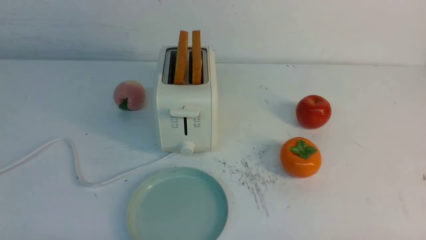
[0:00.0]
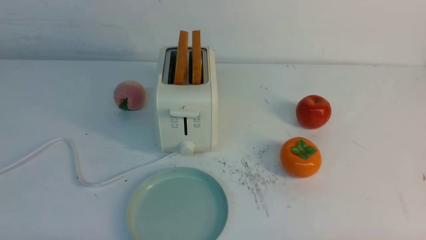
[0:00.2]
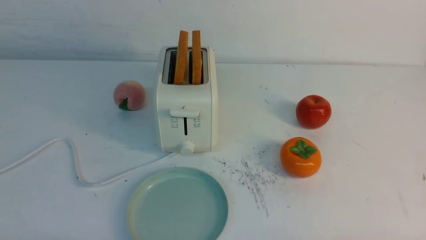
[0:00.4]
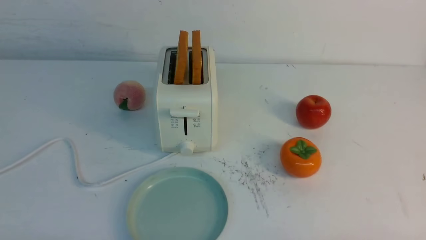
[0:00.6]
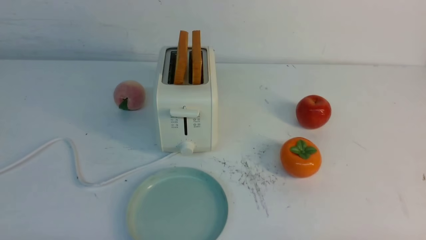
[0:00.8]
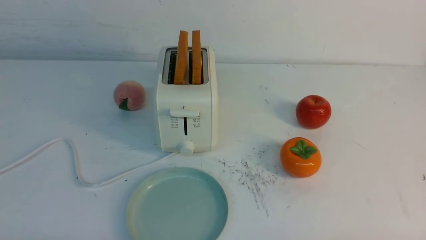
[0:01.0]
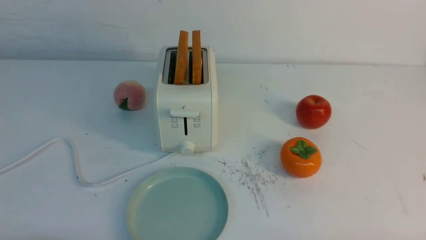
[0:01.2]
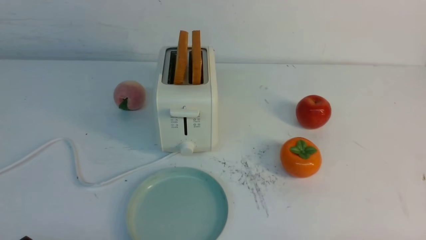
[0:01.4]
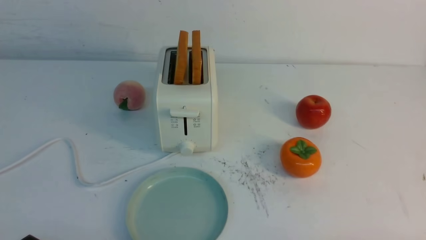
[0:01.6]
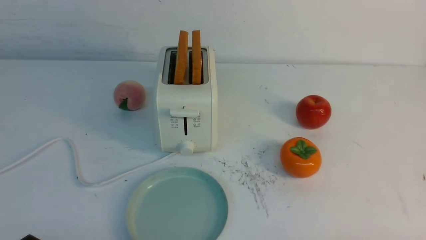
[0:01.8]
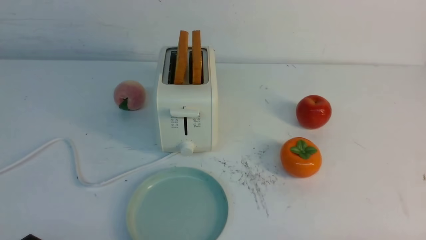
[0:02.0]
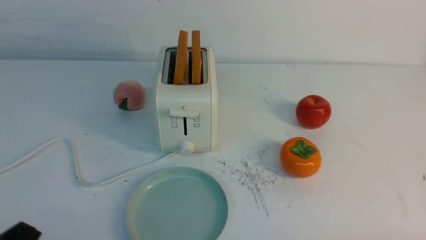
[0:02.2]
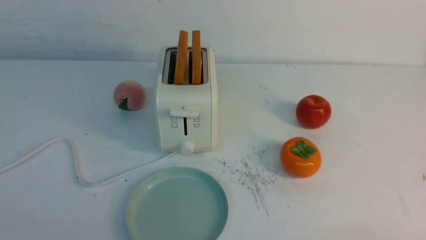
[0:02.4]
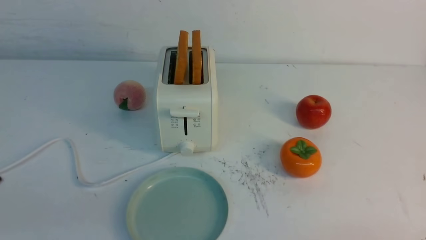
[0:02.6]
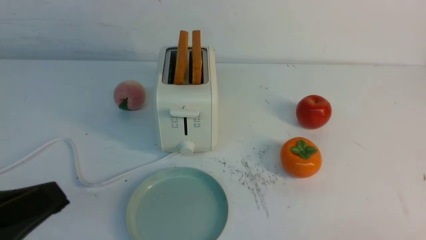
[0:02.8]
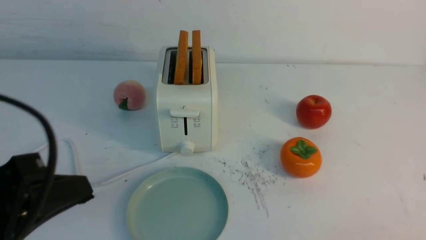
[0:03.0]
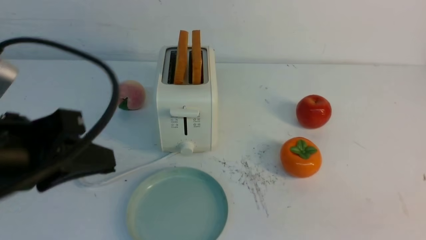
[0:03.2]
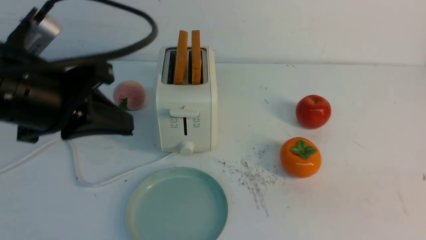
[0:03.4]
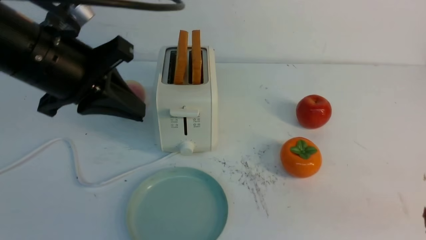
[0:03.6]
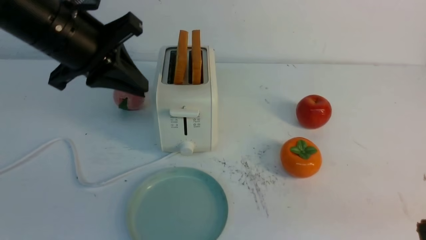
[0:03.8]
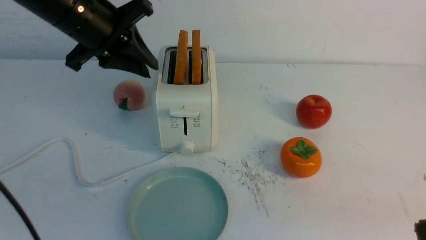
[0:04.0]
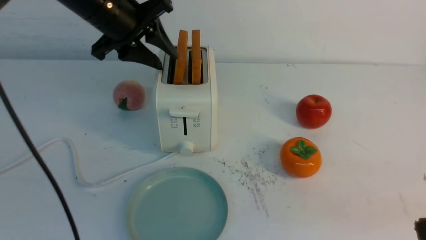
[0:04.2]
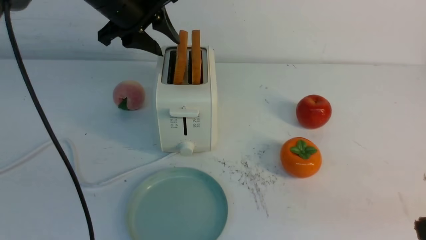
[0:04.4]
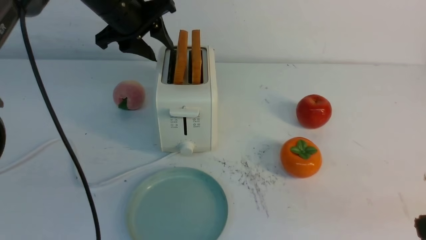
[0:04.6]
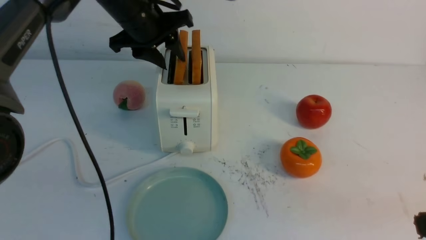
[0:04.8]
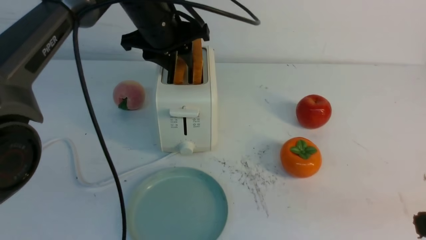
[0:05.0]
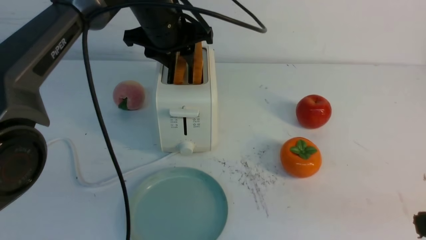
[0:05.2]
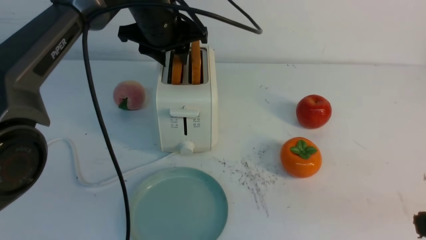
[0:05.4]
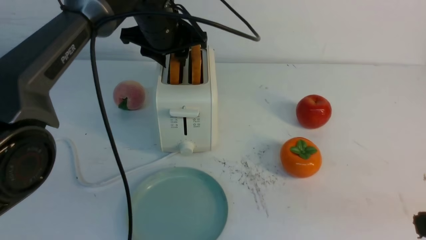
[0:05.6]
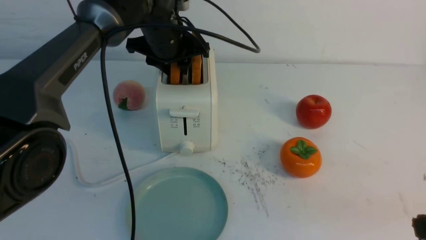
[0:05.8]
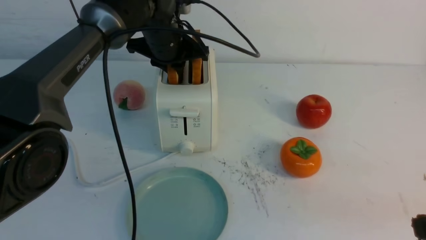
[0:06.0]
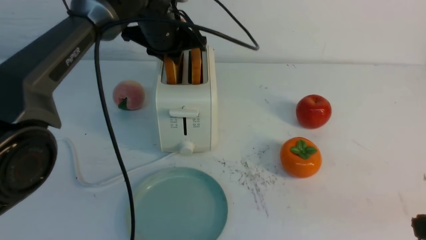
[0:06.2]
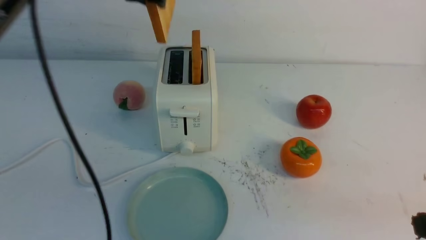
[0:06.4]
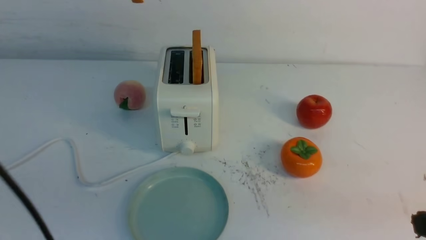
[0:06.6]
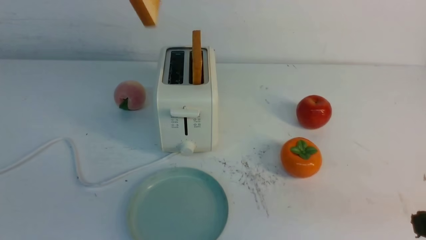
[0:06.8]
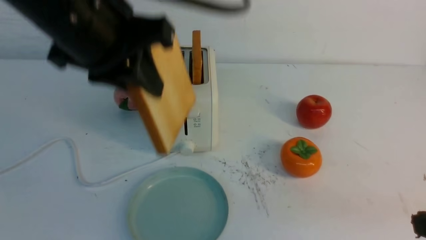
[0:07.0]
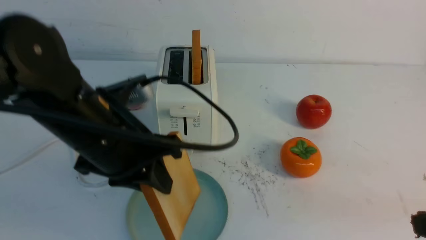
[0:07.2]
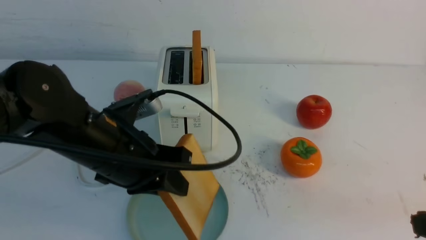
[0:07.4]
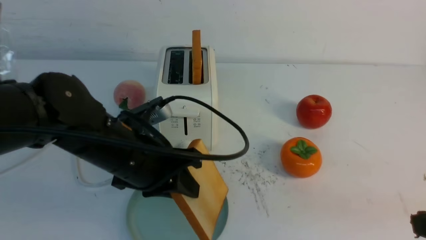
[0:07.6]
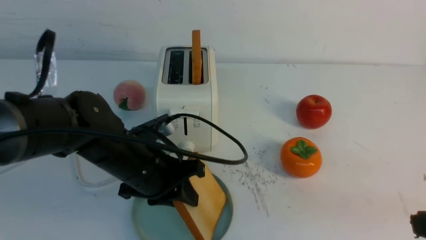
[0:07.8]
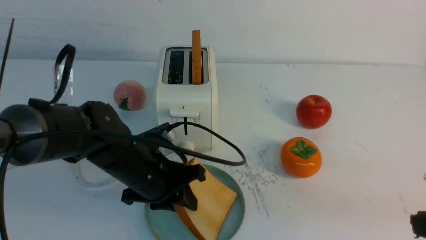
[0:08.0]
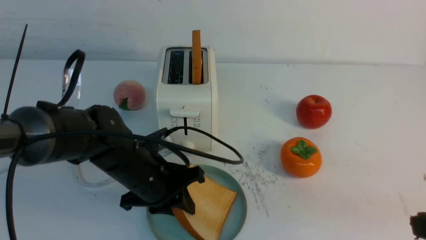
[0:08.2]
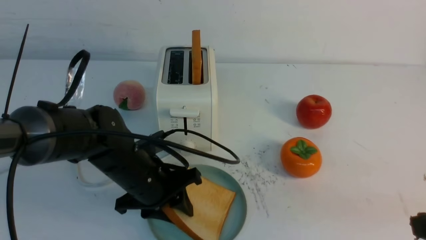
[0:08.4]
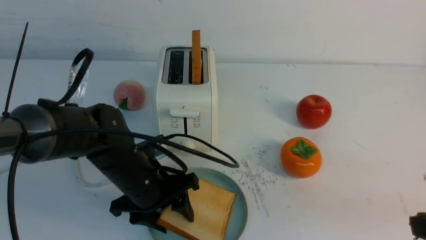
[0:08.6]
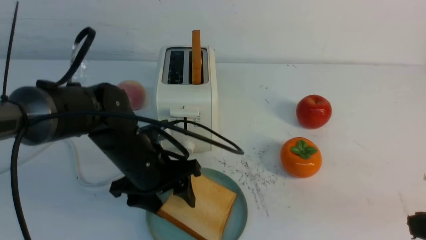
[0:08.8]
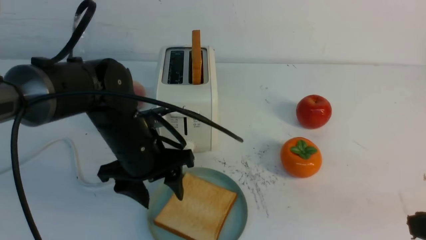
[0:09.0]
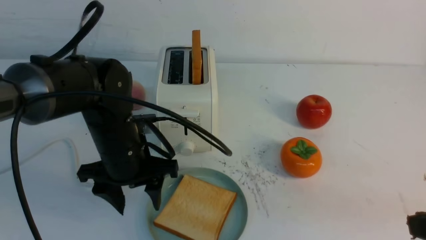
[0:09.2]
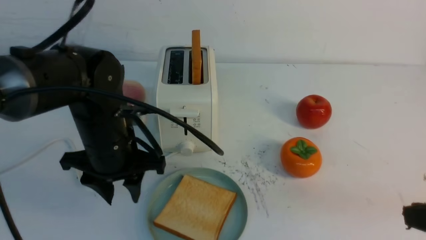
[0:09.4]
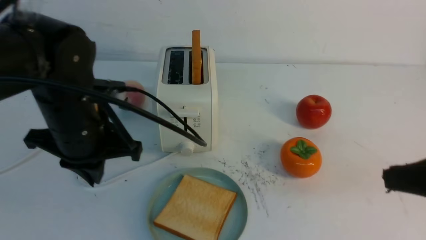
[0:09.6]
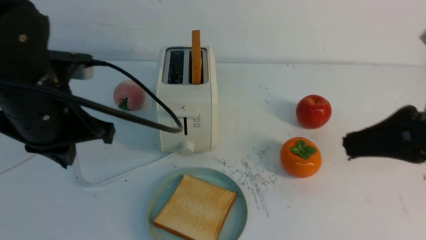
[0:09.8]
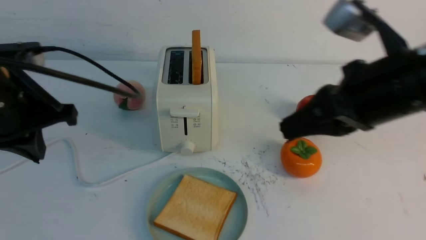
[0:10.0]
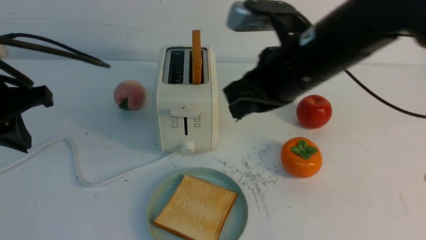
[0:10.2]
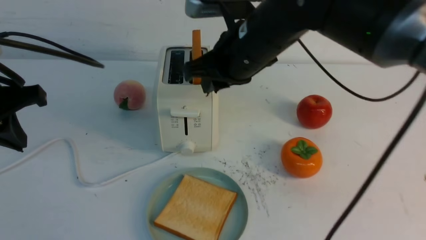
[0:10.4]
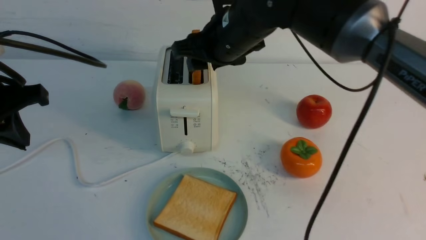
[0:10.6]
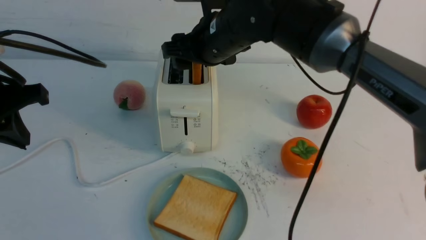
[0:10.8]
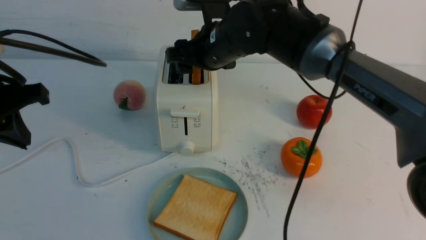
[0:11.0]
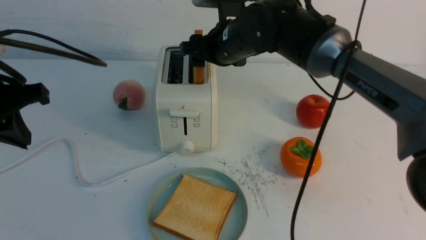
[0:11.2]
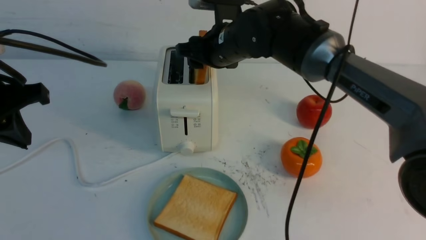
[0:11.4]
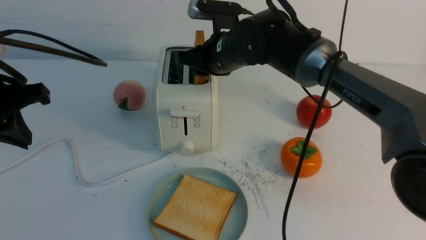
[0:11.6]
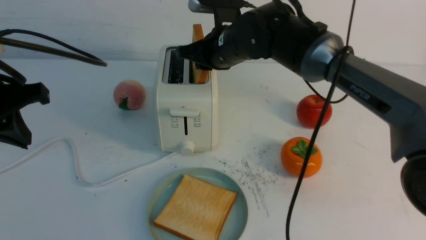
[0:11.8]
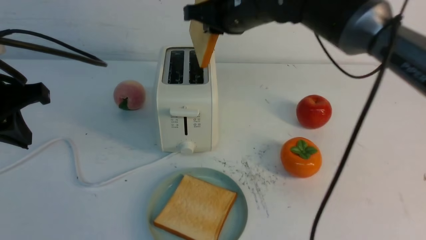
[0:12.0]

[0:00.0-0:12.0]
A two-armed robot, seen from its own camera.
Task of the whole recording: take toasted bread from bread machine on white table place on plate.
Step, 0:00.0 to 0:06.4: use the left arm to take out a slice of bread.
Step, 0:06.6 to 0:09.0: use the left arm to put a slice of bread into the empty plate.
0:01.6 to 0:03.0: The left gripper travels upward and forward by roughly 15 cm, and closes.
0:03.0 to 0:04.4: The right gripper is displaced upward and forward by roughly 10 cm. The left gripper heads forward, covering approximately 30 cm, and opens its fingers.
0:04.4 to 0:06.0: The left gripper goes some 5 cm to the right, and closes up.
0:06.0 to 0:07.6: The left gripper heads backward, covering approximately 20 cm, and moves some 15 cm upward and comes back.
0:07.6 to 0:09.0: The left gripper opens.
0:09.0 to 0:10.4: The right gripper is displaced forward and to the left by about 30 cm. Meanwhile the left gripper heads to the left and upward, covering about 20 cm, and closes.
0:10.4 to 0:12.0: The right gripper goes some 5 cm forward, and opens and closes again.

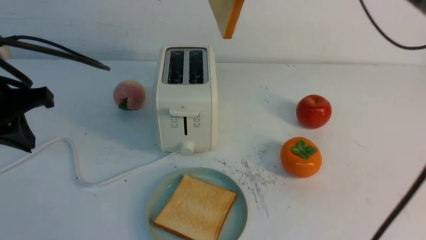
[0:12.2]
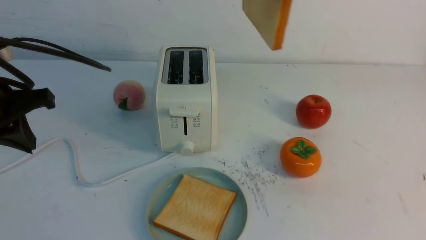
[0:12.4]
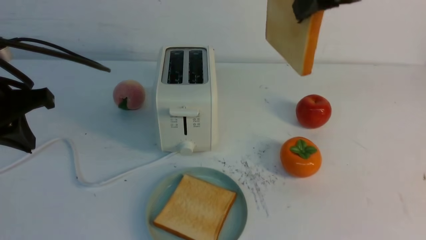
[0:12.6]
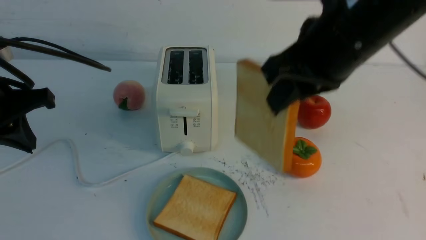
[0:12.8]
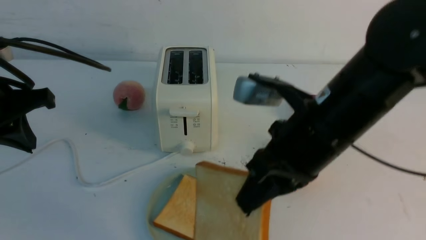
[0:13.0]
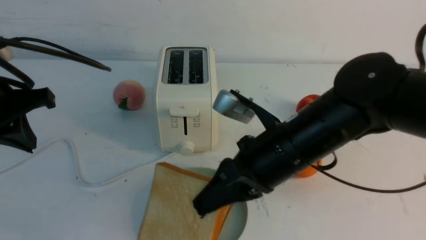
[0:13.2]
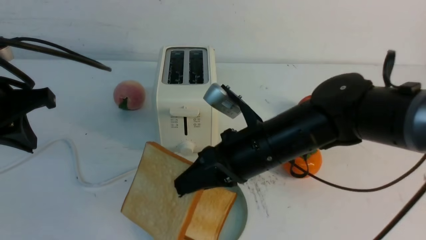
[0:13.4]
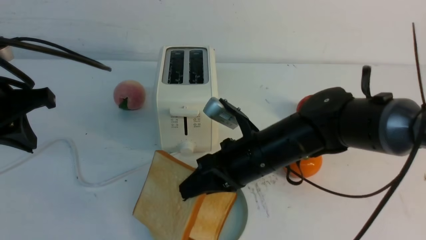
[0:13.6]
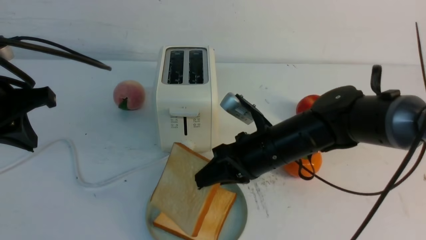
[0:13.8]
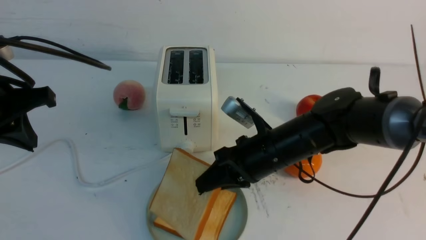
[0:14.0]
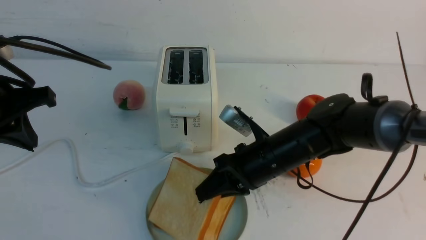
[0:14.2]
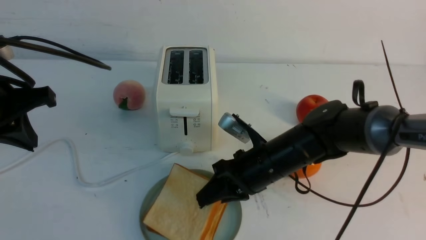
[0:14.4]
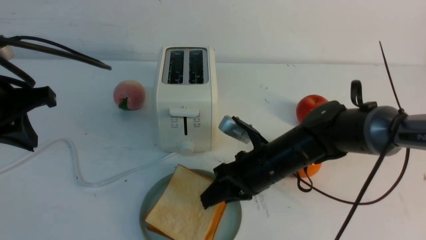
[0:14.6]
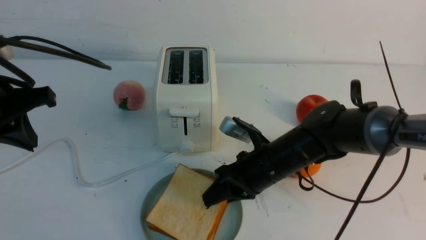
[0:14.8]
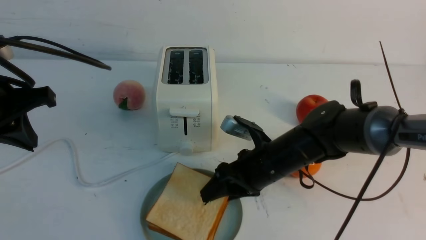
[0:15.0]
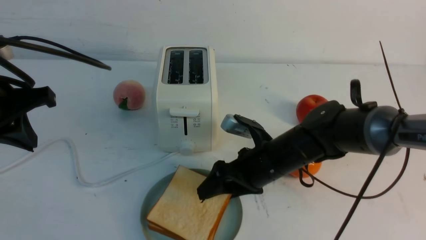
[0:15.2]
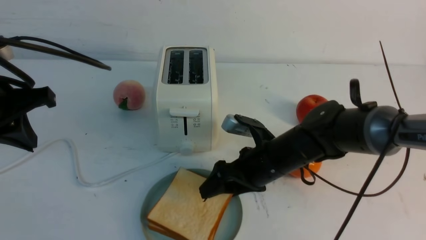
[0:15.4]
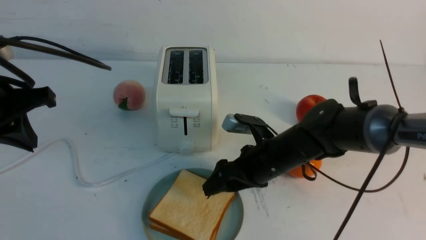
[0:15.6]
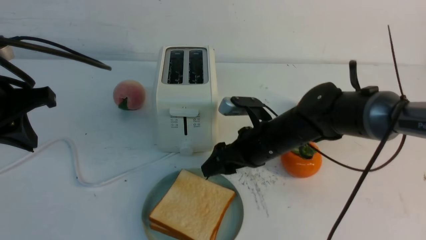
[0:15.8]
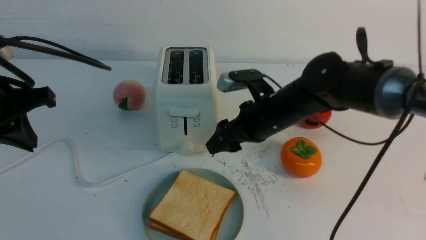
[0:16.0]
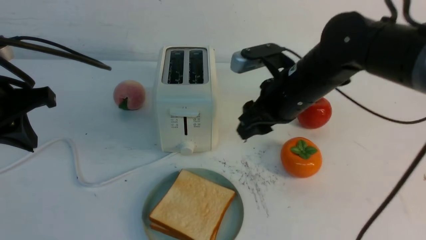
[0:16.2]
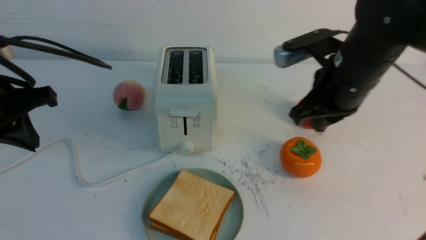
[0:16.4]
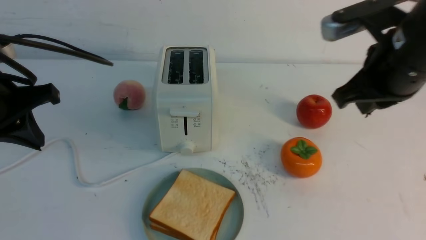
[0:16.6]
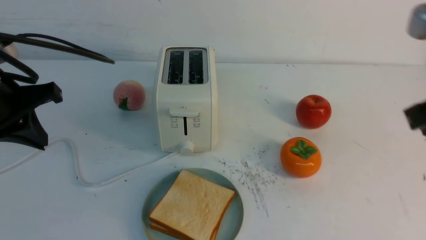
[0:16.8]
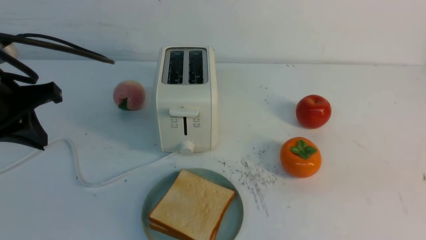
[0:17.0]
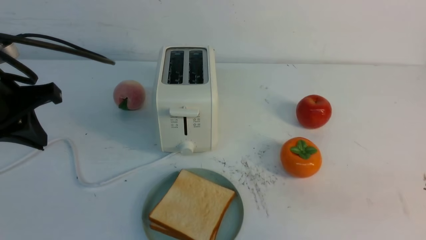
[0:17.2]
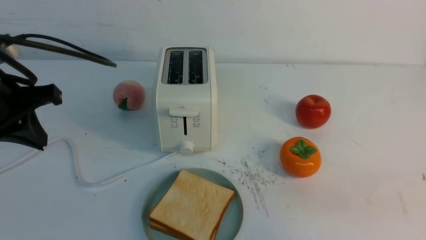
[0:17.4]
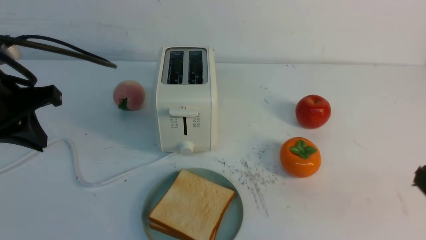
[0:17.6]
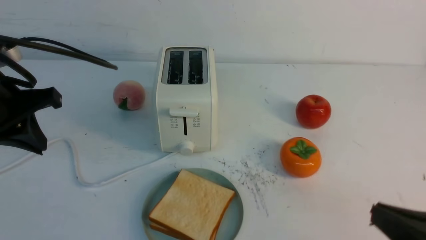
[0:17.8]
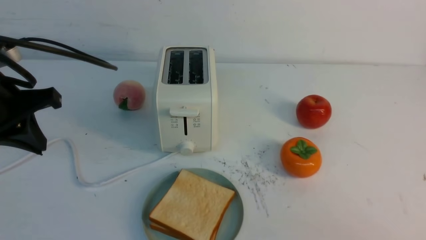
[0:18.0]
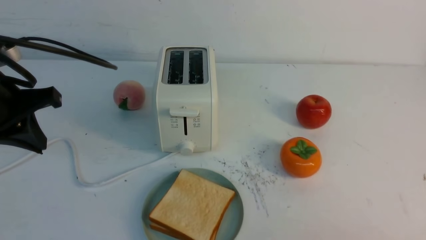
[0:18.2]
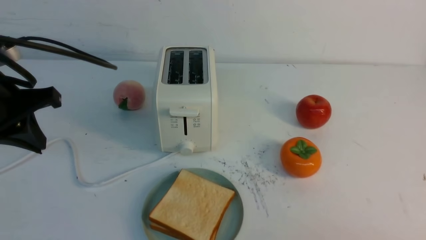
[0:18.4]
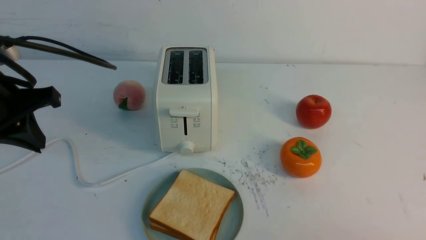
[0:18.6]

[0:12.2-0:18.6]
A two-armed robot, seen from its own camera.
Task of the whole recording: take toasted bread from bread machine on white table place on plate.
Step, 0:12.2 to 0:15.6: use the right arm to put a slice of bread into the plate.
0:12.2 to 0:13.8: The right gripper goes some 25 cm downward.
0:13.8 to 0:15.4: The right gripper changes place by approximately 5 cm, and opens.
0:15.4 to 0:17.0: The right gripper is displaced backward, upward and to the right by about 30 cm, and closes up.
